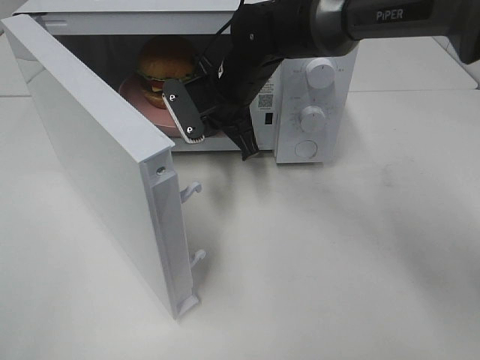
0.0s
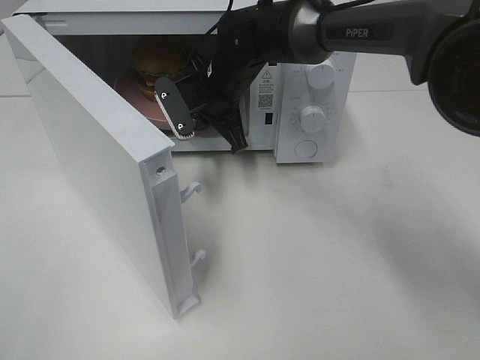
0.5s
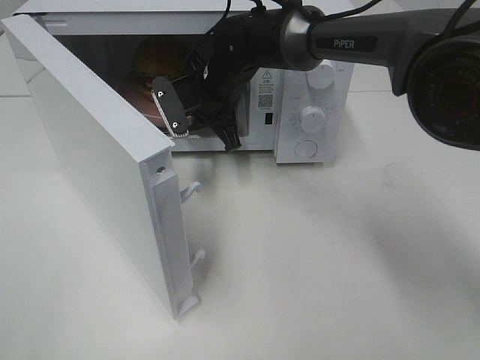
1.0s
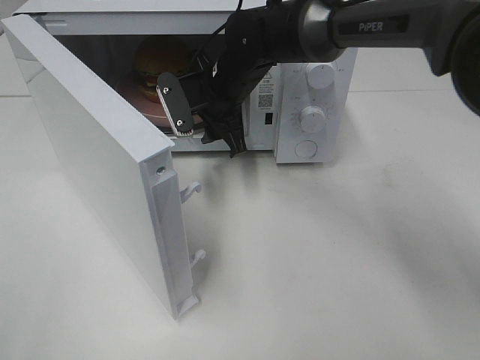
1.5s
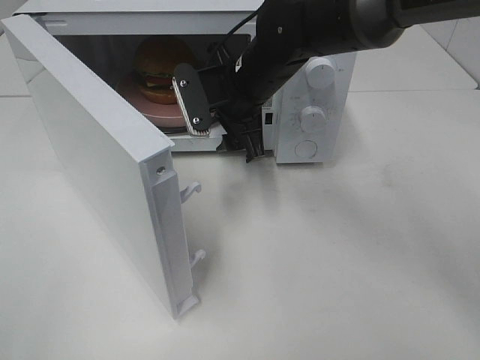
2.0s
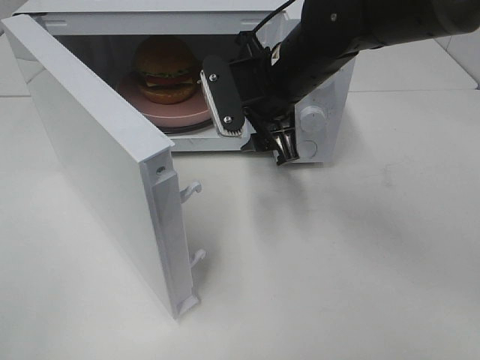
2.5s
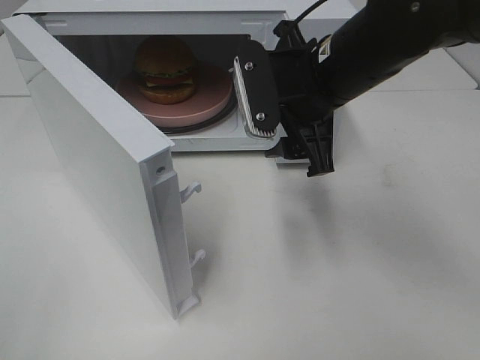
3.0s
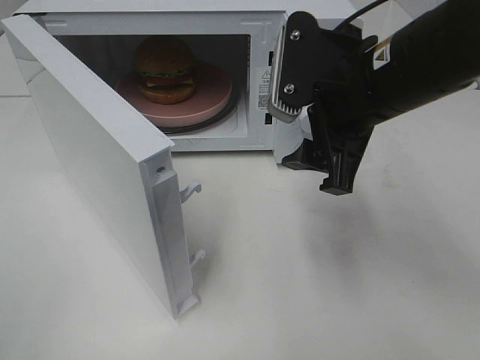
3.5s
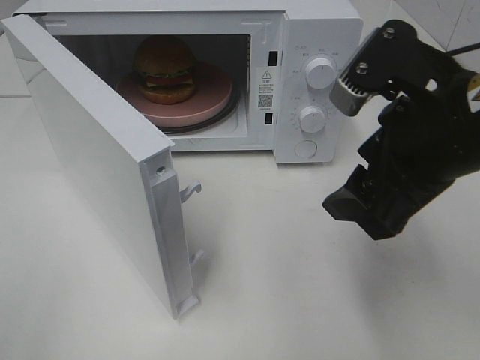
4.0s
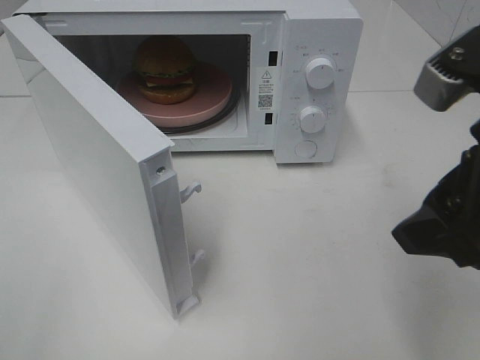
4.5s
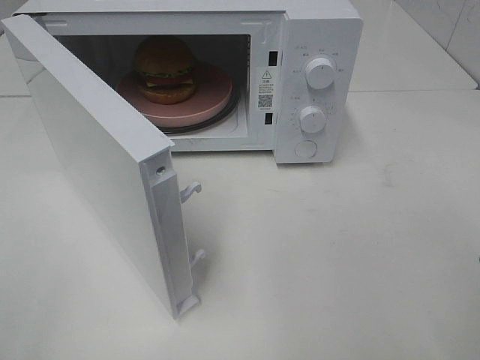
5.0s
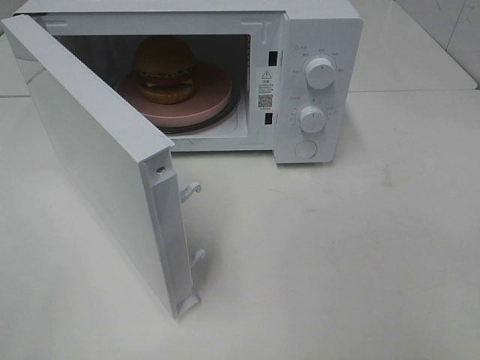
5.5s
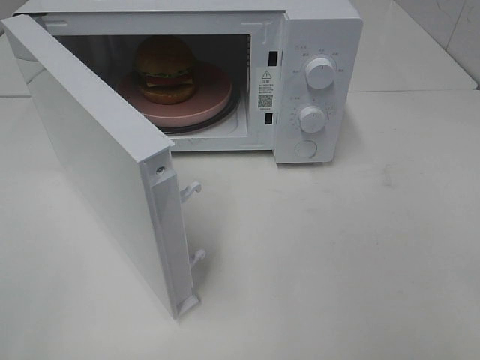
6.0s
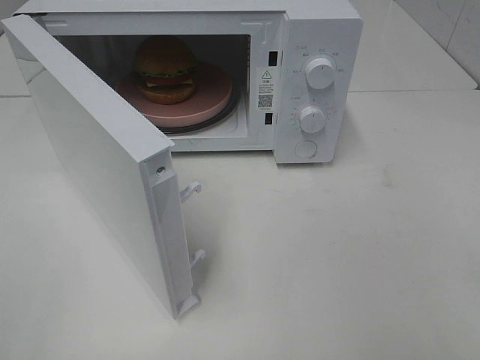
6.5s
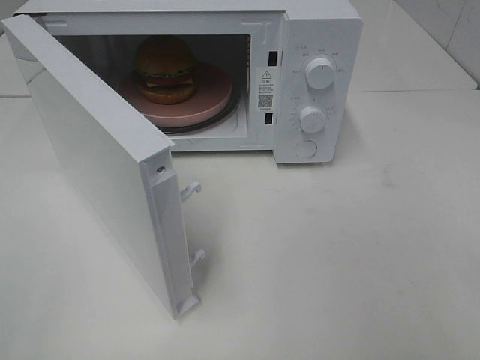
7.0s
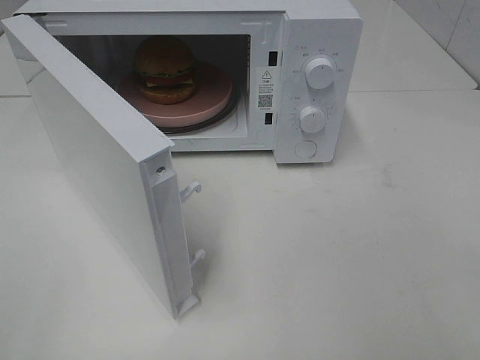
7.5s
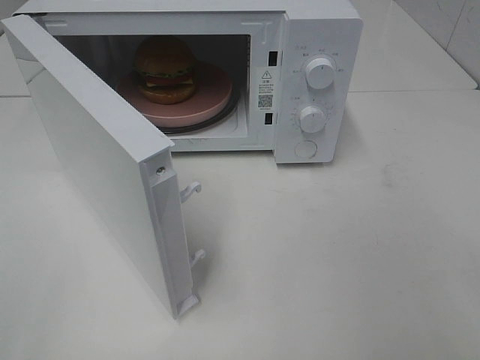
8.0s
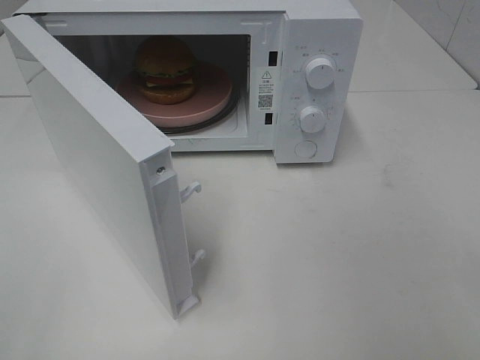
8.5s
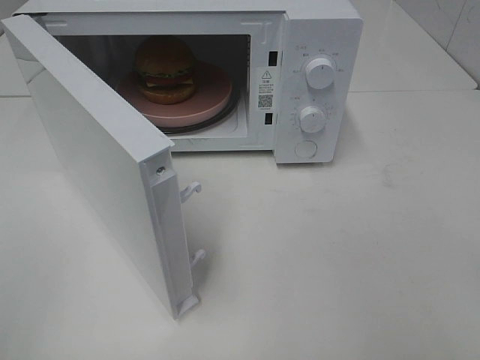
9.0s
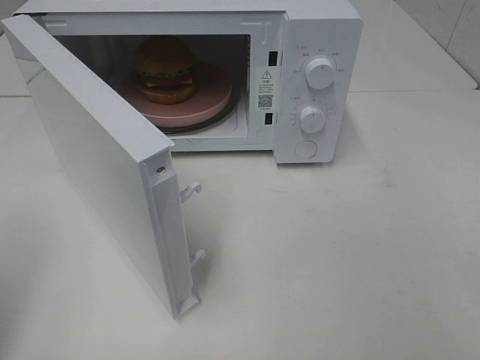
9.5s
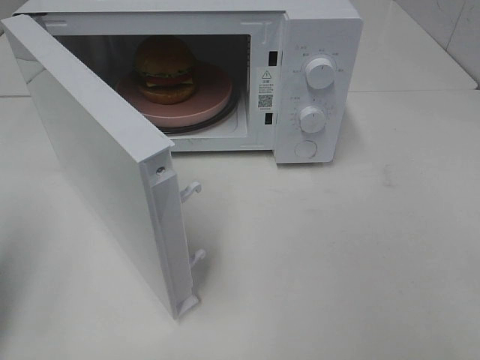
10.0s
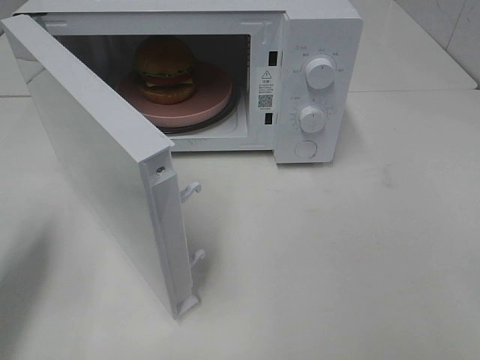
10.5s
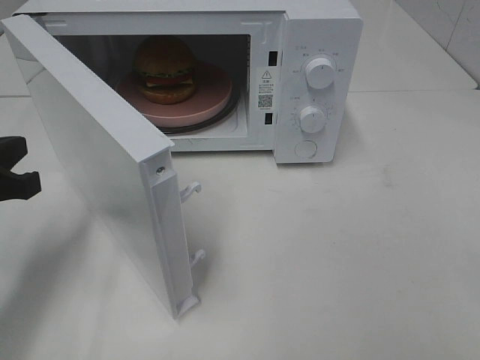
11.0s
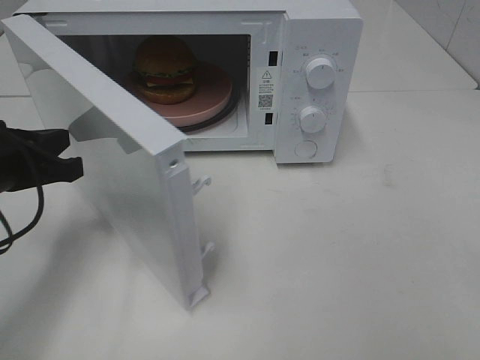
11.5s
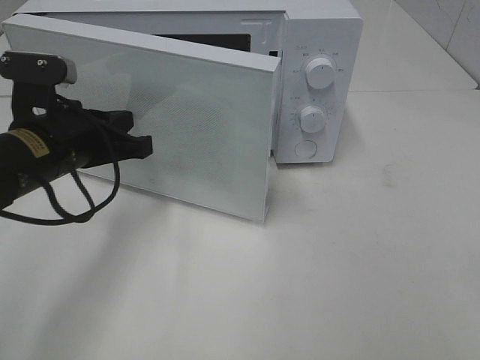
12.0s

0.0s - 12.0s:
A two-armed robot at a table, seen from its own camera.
Task of the whole recording: Heat the burger.
0.0s - 2.0s: The right gripper opens its fingers.
2.0s - 4.0s: The right gripper shifts some 25 cm backward and to the right.
4.0s - 6.0s: The right gripper travels backward and to the right by about 20 cm.
8.0s - 10.0s: The left gripper heads forward, covering roughly 15 cm, and closes its fingers.
10.0s - 12.0s: The left gripper moves to the right, forward and downward, about 20 cm.

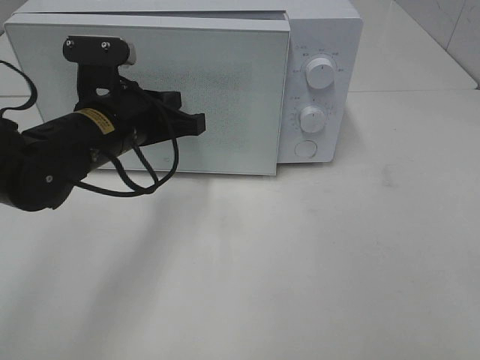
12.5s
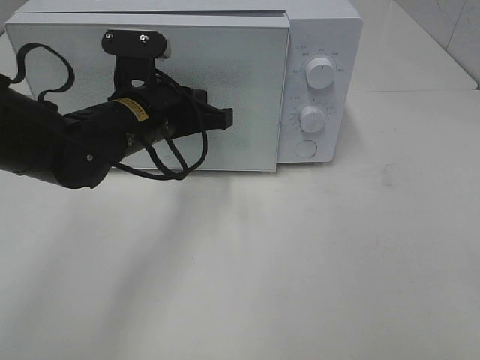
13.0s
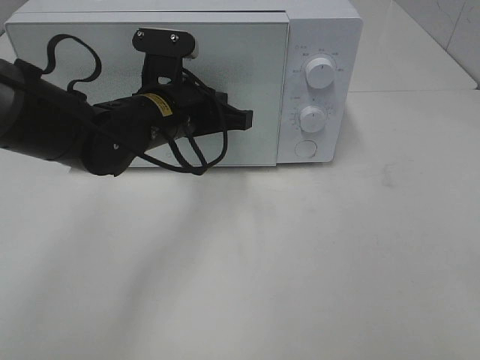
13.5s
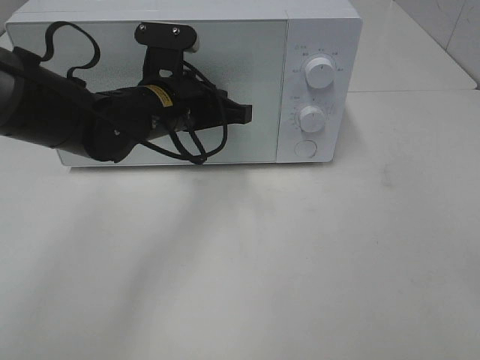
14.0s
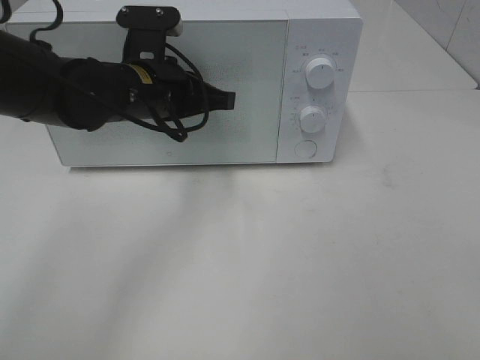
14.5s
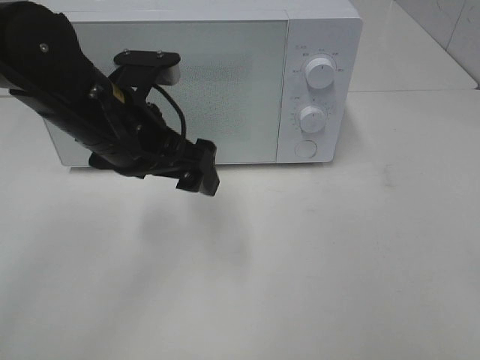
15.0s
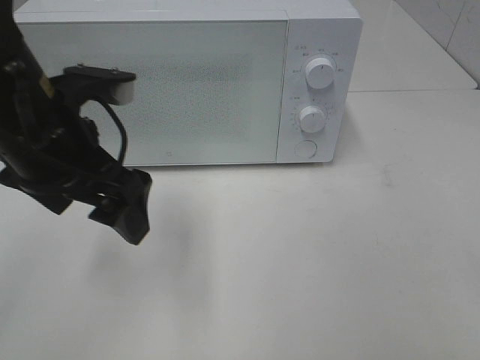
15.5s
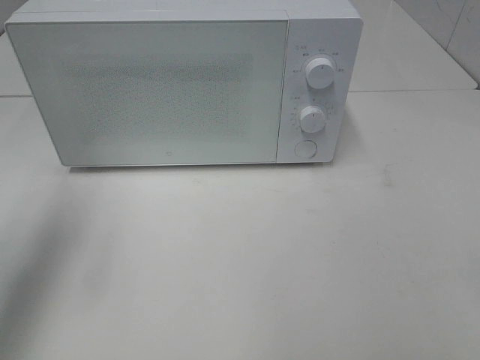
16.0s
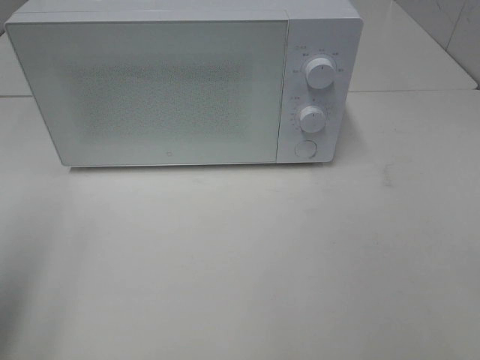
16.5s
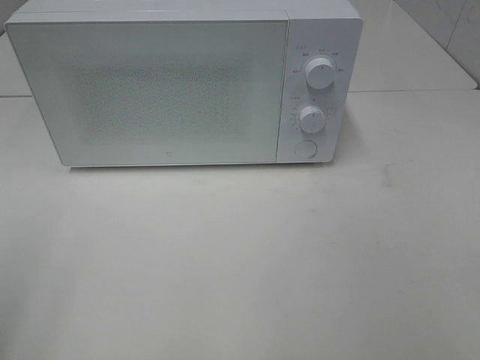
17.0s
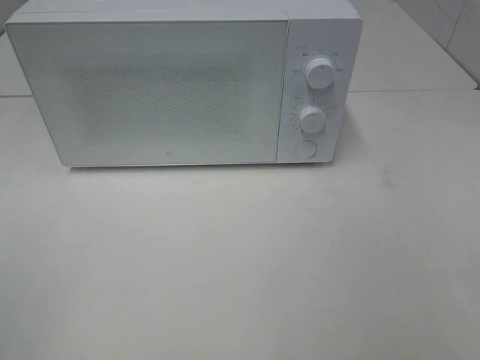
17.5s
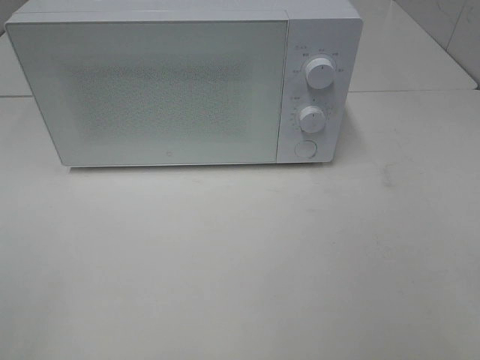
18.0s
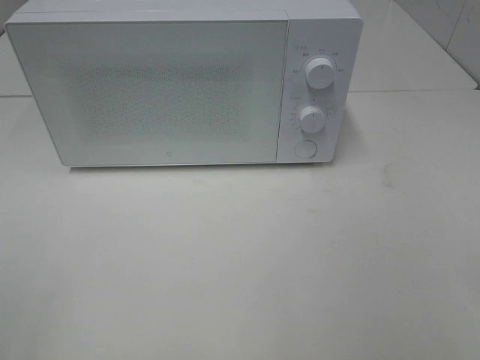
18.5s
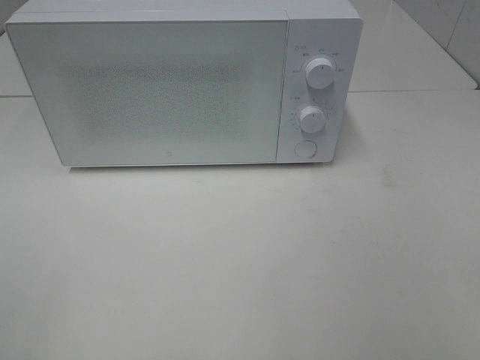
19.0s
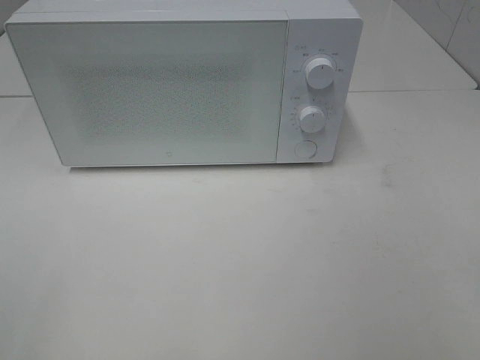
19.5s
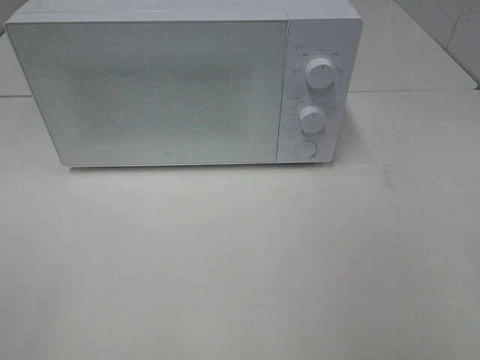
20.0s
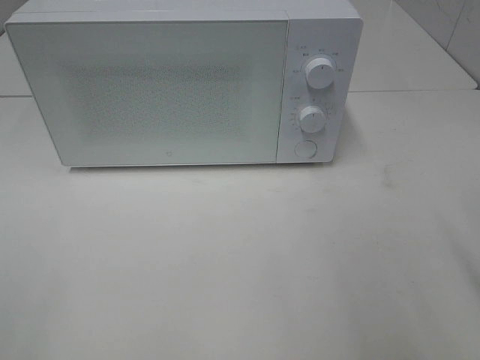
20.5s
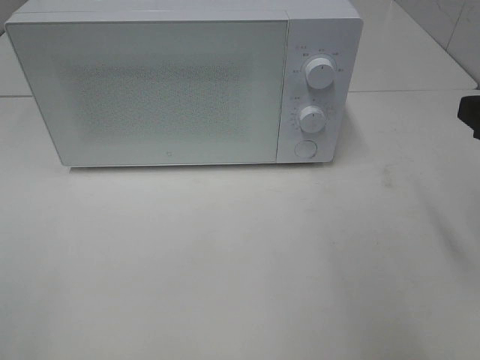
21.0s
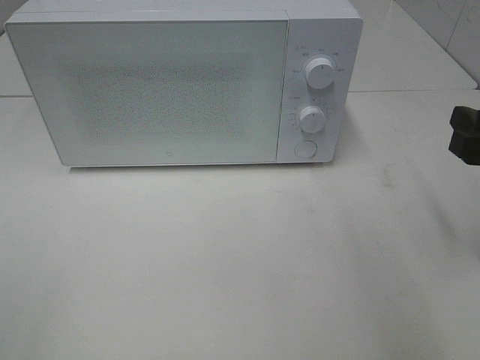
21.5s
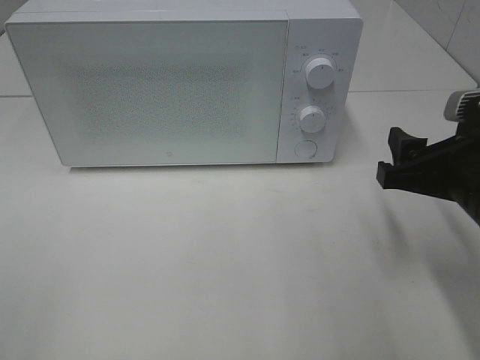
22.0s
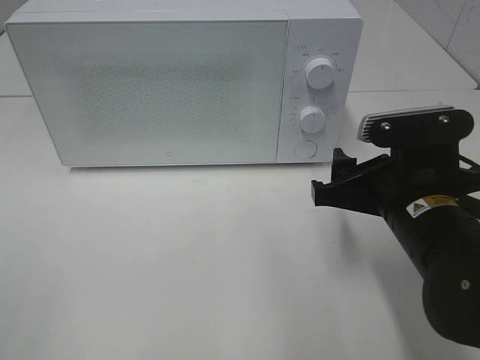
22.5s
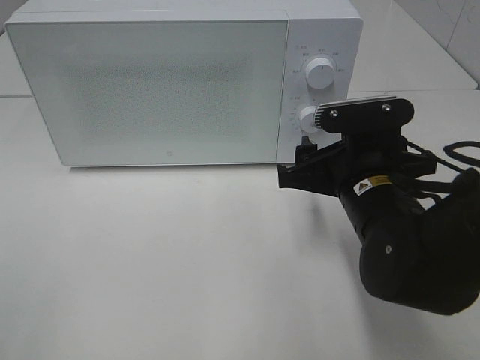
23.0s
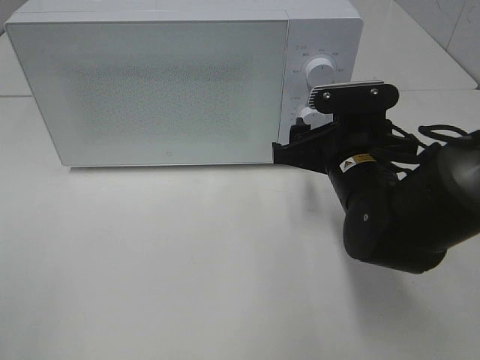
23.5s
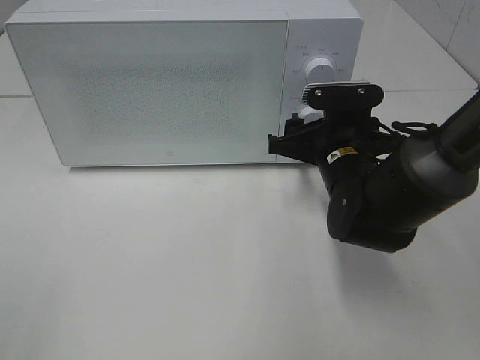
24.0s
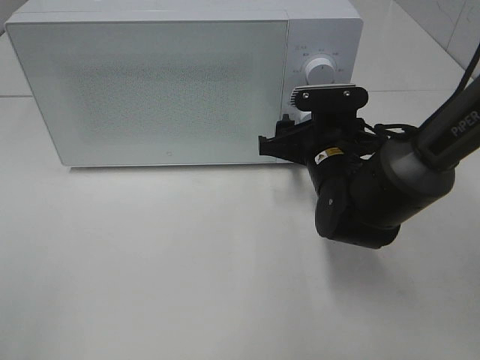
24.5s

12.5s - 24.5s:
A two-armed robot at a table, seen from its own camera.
Task of the whole recording: Heat the burger.
Step, 12.5s - 14.5s: Left hand: close the microwave door.
12.5s - 14.5s: The left gripper shifts by some 5 cm.
14.5s - 16.5s: The left gripper moves to the left, backward and upward, some 35 cm, and opens up.
16.5s - 18.5s: The left gripper travels backward by approximately 15 cm.
20.5s - 22.5s: The right gripper moves to the left, downward and forward, approximately 20 cm.
22.5s - 24.5s: The right gripper shifts some 10 cm forward.

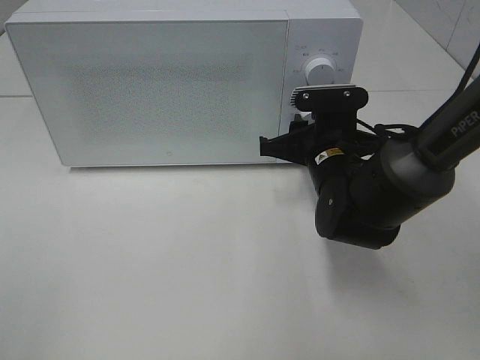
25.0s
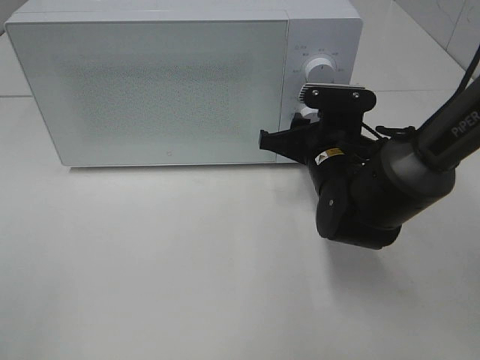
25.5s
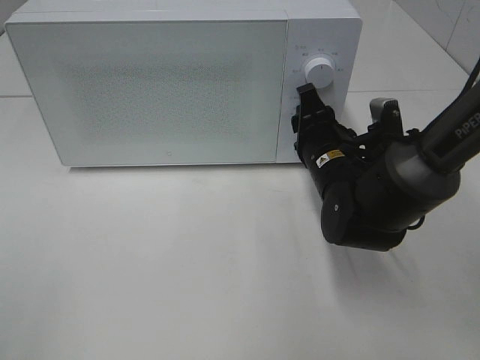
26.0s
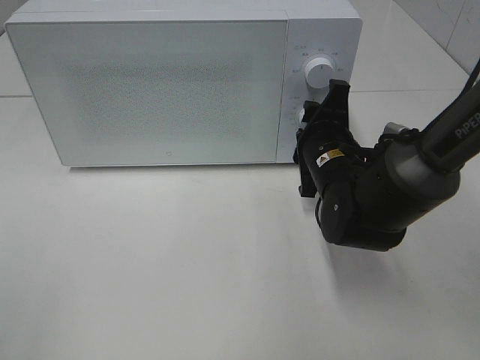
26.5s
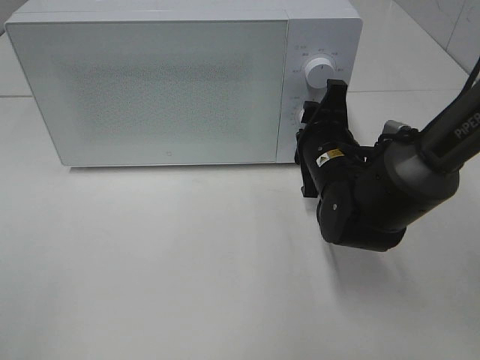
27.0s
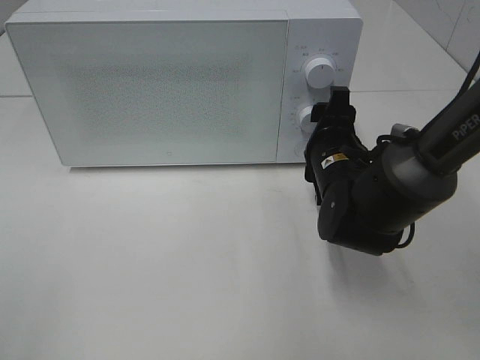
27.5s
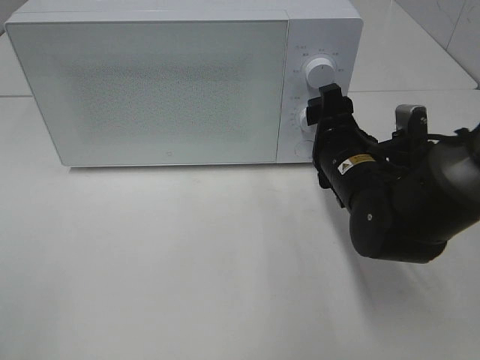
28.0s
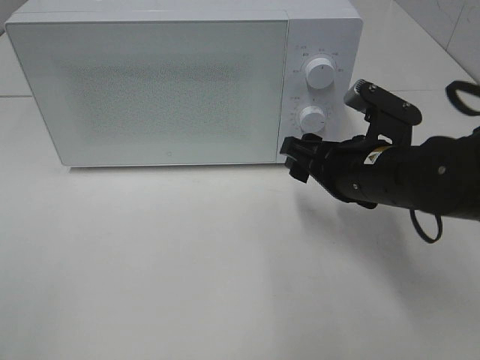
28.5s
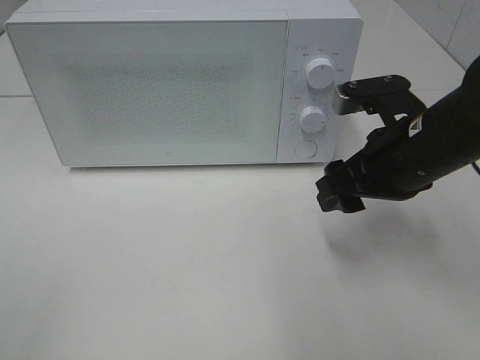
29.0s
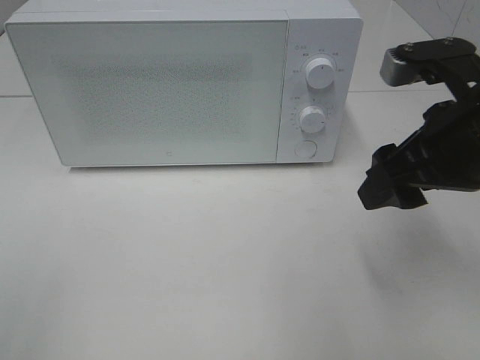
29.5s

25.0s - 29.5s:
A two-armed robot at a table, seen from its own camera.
Task of the whole recording: Heat the burger.
Step, 25.0s - 27.5s: Right hand: twist timer button.
27.0s - 29.5s: The right gripper goes roughly 20 cm upward, backward and to the right, and opens.
